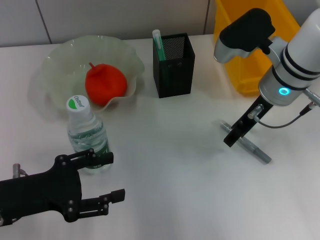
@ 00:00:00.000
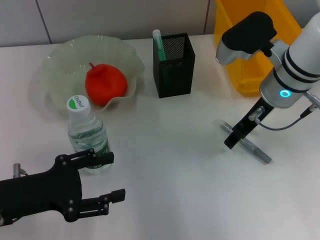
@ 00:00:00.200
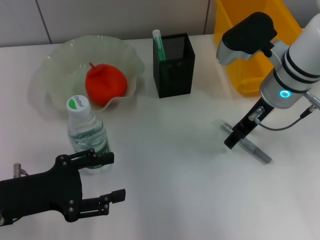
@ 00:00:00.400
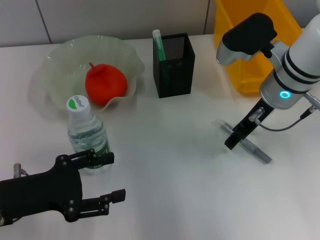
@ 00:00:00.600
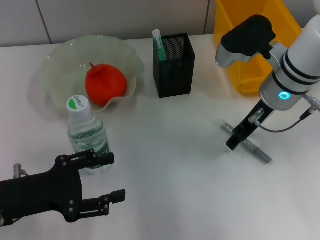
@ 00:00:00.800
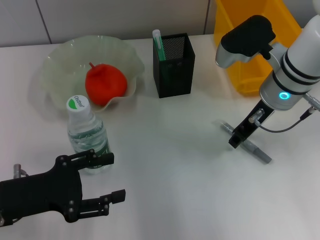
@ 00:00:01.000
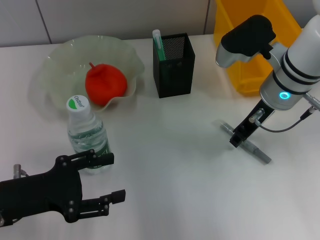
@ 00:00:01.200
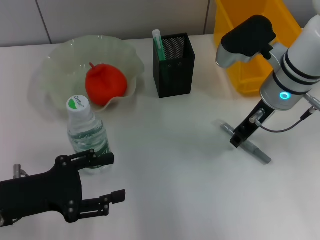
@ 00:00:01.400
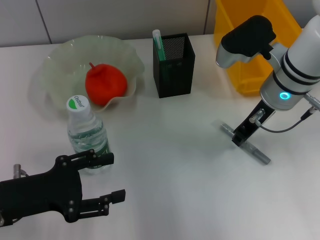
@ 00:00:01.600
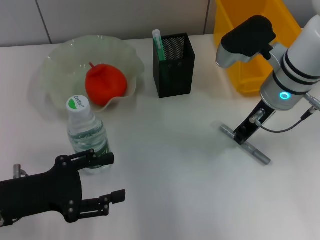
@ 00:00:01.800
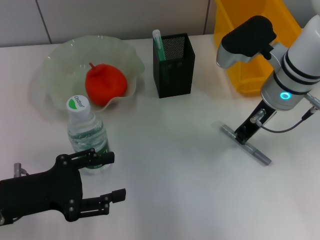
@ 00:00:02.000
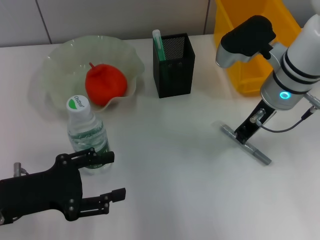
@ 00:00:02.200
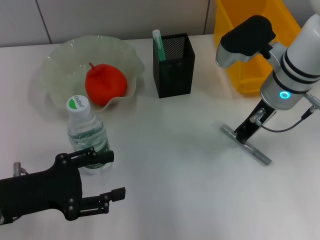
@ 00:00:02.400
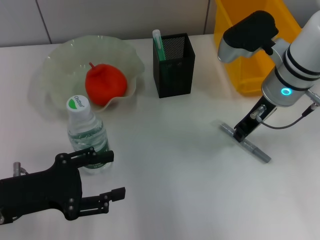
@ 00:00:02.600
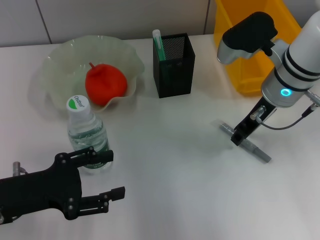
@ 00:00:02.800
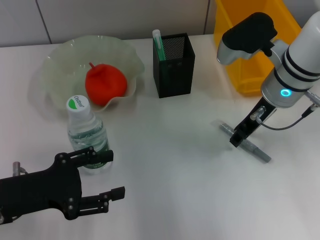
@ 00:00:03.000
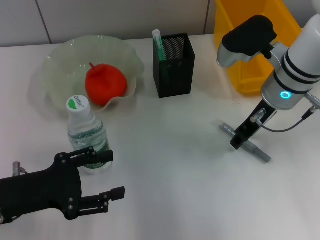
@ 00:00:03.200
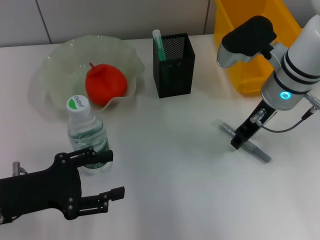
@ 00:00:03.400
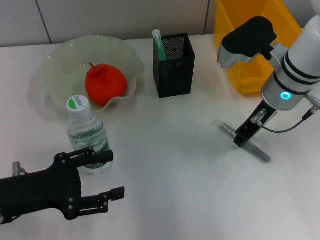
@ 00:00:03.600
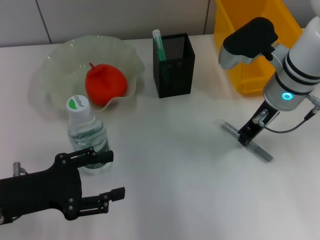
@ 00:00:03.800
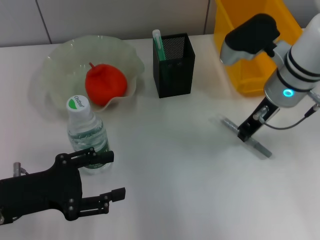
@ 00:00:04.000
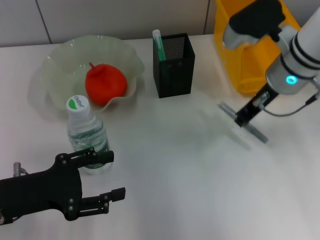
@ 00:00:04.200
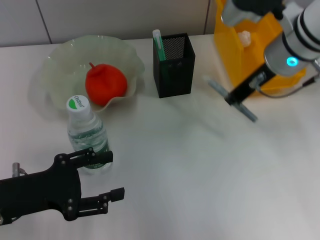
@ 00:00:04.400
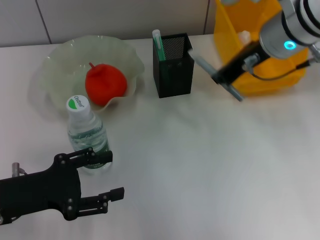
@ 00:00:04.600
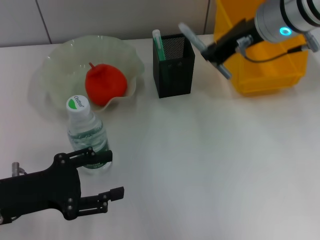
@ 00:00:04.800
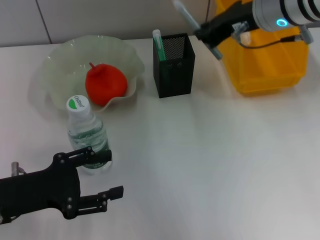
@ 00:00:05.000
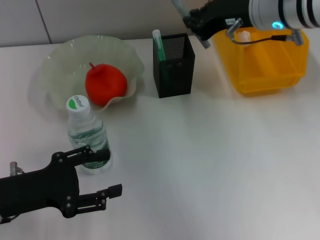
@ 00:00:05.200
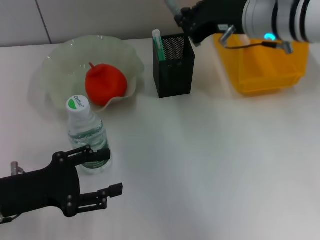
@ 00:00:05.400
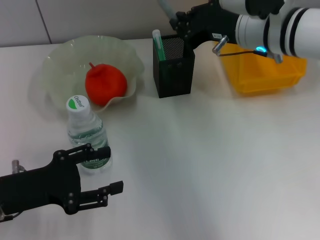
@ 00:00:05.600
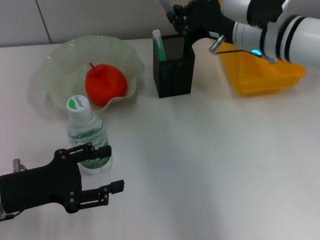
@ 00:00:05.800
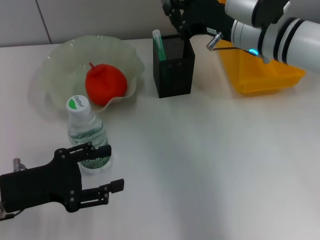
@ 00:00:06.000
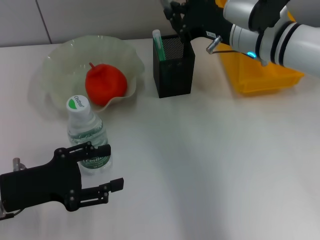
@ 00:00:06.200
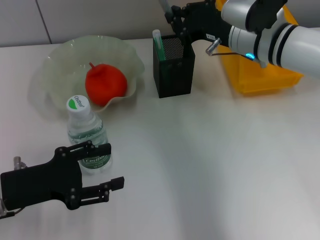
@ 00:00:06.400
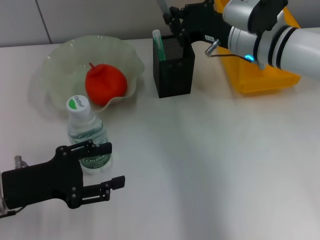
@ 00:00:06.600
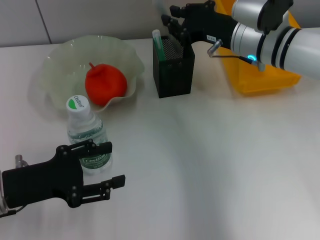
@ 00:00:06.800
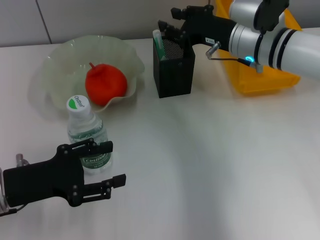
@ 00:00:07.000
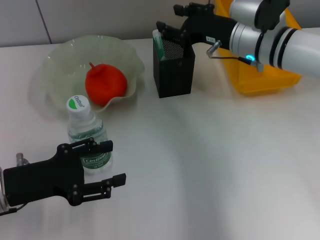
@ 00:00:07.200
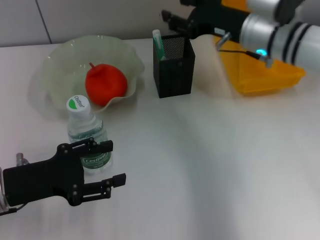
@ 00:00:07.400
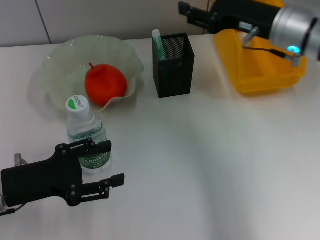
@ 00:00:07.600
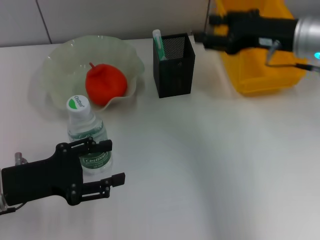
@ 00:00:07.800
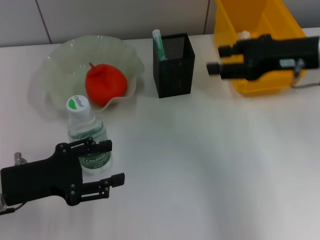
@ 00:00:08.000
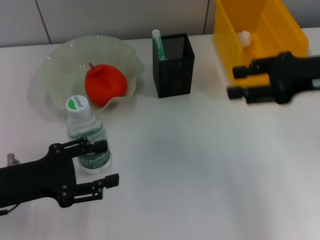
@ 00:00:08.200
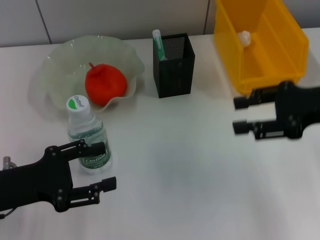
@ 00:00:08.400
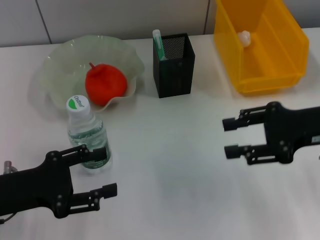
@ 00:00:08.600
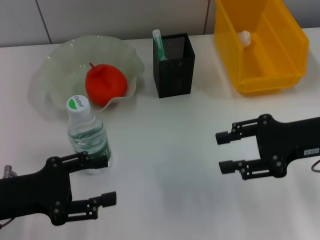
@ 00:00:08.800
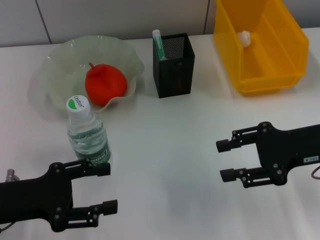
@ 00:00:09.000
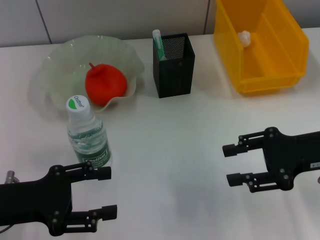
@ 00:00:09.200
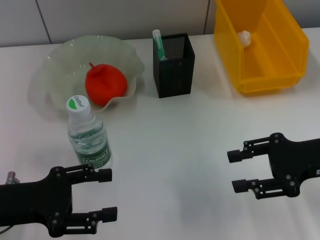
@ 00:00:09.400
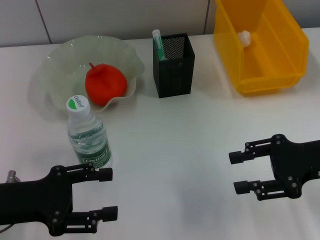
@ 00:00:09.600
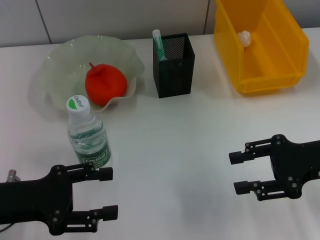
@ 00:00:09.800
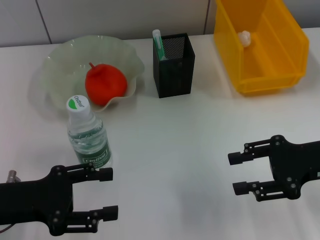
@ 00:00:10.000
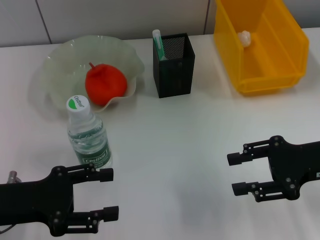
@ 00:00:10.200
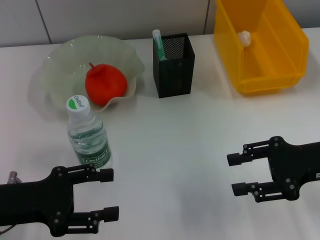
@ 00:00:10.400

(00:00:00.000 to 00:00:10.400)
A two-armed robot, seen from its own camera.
Step, 00:00:00.000 - 00:00:03.800: Grab the gray glue with the right hand.
Step, 00:00:04.000 - 00:00:07.000: Place the gray glue into the pen holder with the right hand.
00:00:00.000 - 00:00:01.400: The right gripper closes its fingers.
00:00:01.400 - 00:00:03.000: Neither gripper changes place.
00:00:03.000 - 00:00:04.400: The right gripper heads upward, covering about 5 cm.
00:00:06.000 - 00:00:07.400: The right gripper opens.
00:00:07.400 - 00:00:09.000: The right gripper heads backward and to the right, covering approximately 15 cm.
00:00:09.000 - 00:00:10.400: The grippers move only a little.

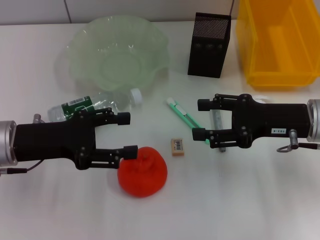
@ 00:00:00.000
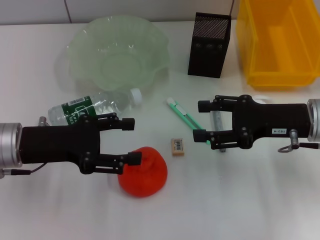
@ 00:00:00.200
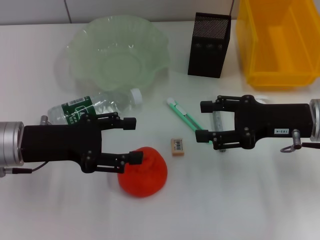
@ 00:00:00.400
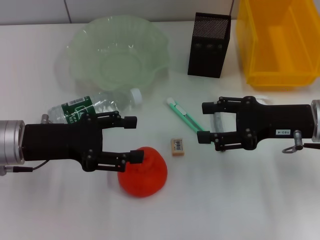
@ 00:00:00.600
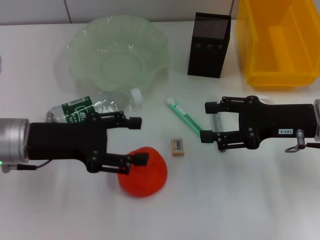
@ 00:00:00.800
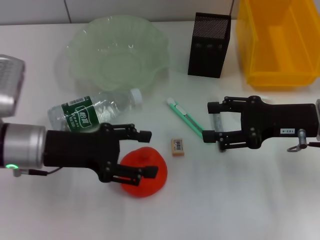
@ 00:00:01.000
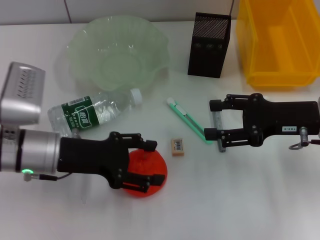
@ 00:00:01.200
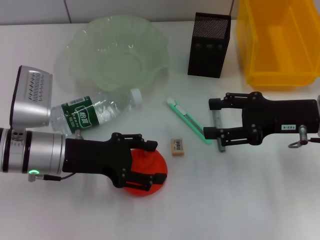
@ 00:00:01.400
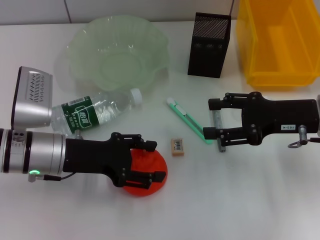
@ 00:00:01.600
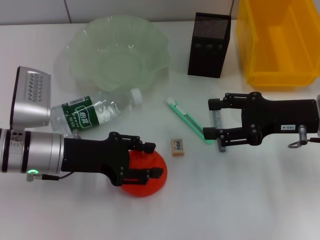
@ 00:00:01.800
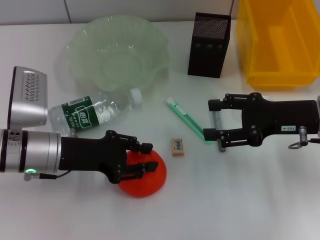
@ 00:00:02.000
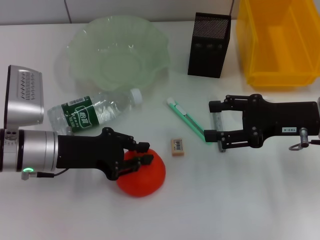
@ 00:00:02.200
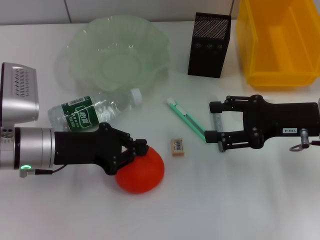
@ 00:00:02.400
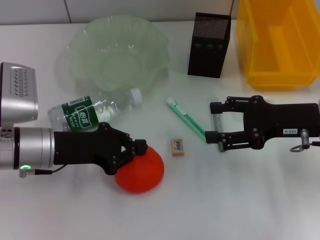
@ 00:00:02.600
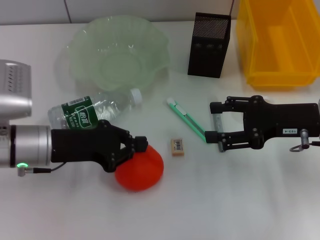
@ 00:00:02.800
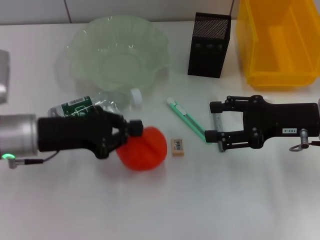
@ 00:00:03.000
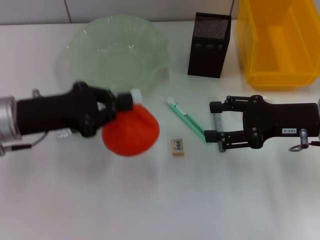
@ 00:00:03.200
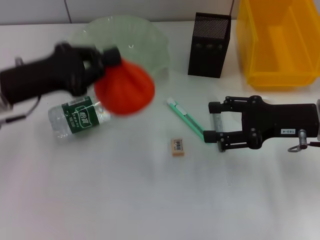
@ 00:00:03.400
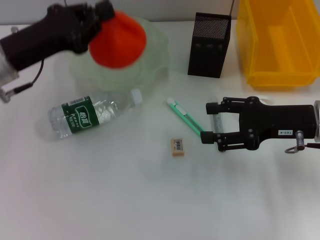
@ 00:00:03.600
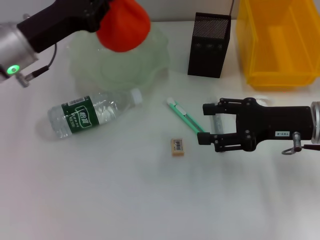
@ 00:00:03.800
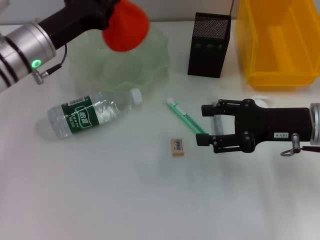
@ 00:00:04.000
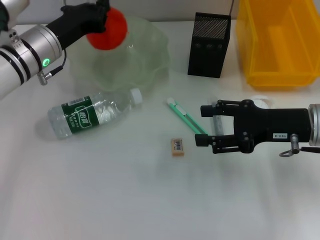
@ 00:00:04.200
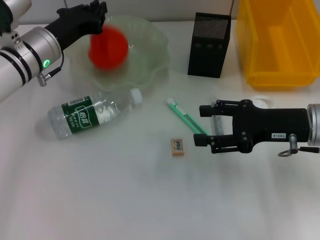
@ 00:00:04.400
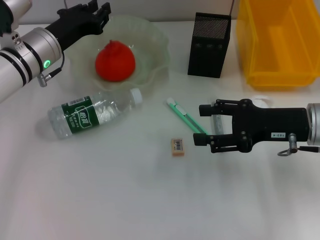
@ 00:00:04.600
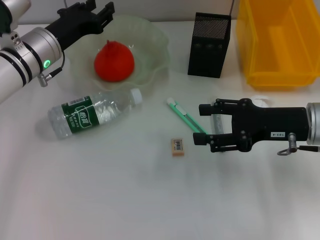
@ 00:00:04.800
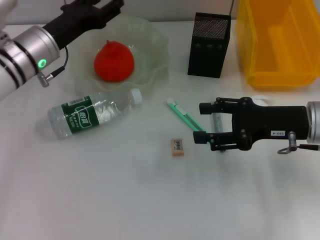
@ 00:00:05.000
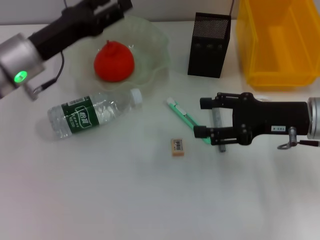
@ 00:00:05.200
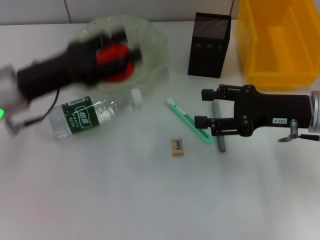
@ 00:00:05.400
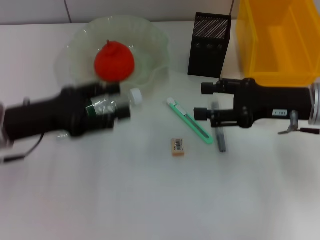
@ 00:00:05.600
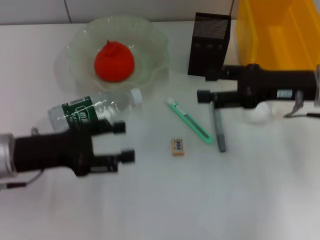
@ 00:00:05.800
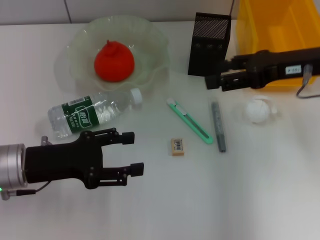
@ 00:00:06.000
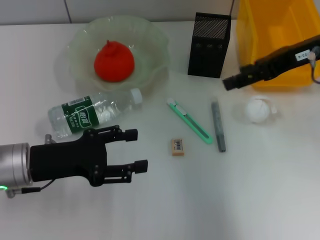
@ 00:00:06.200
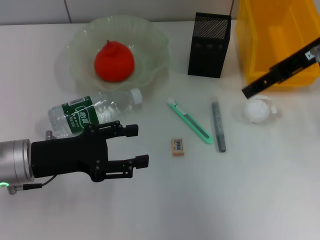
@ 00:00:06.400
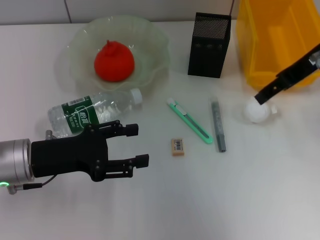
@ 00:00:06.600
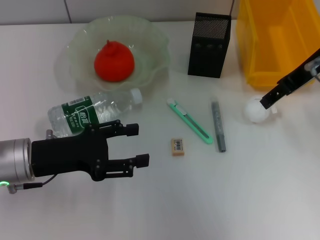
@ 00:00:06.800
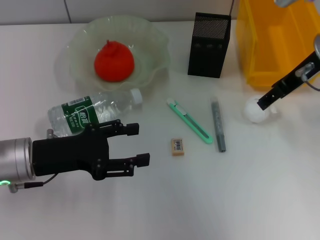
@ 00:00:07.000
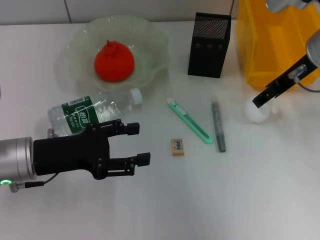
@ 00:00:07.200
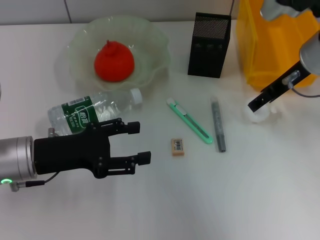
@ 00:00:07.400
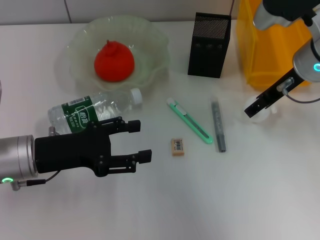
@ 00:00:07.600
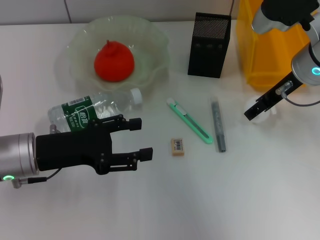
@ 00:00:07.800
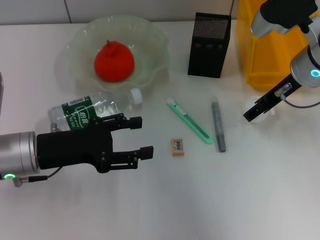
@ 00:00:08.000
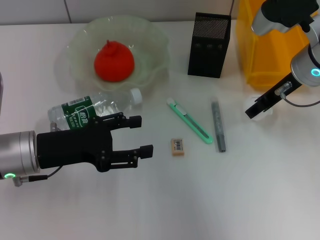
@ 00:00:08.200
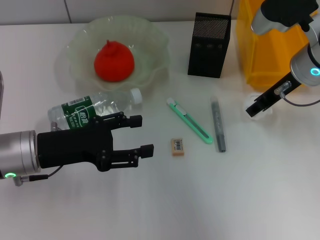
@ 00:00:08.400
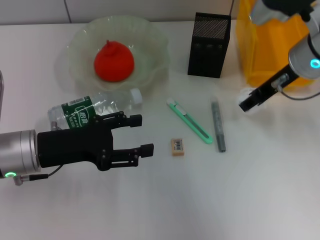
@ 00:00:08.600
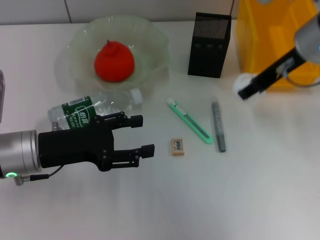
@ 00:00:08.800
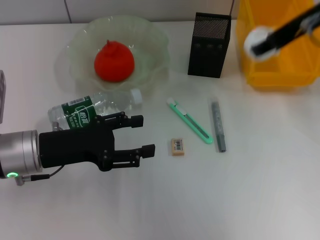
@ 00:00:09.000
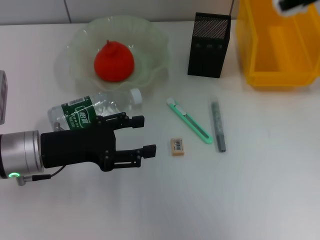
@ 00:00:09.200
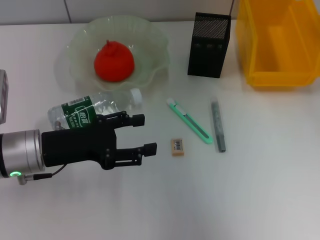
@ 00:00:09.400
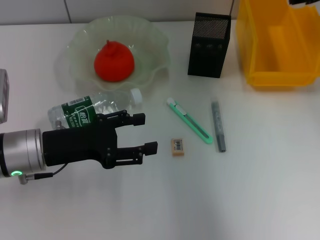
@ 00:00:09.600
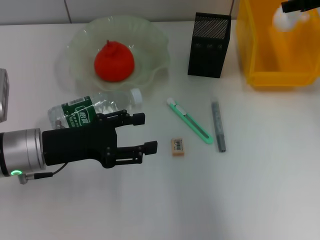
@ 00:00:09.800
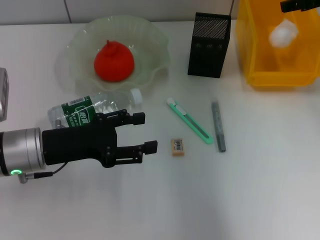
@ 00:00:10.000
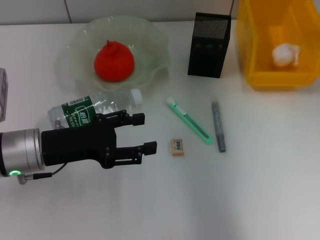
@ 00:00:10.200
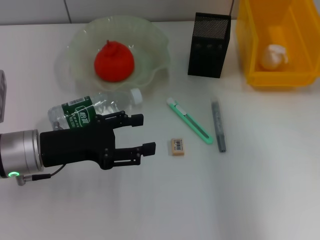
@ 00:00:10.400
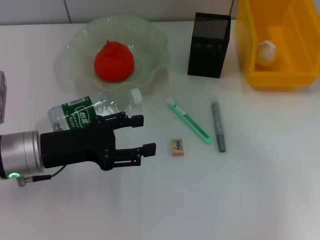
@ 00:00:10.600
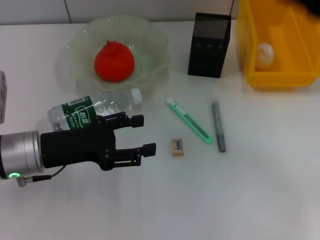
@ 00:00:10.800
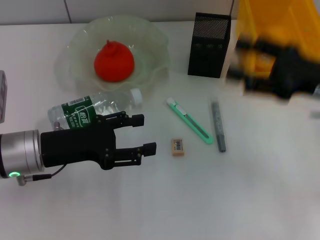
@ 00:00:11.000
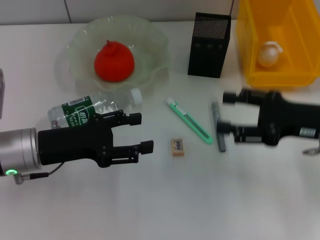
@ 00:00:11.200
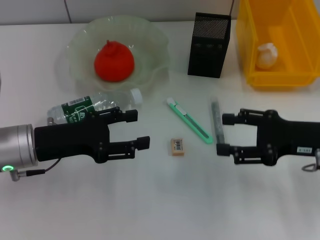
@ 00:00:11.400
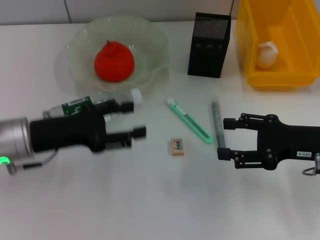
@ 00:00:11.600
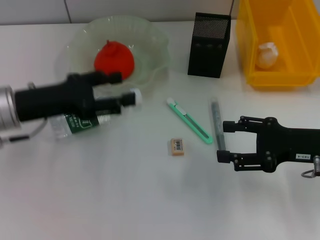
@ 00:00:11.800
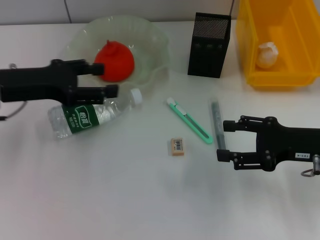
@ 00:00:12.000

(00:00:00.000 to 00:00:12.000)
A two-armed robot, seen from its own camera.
Step, 00:00:00.000 - 00:00:02.600: Grab the orange with the left hand.
Step, 00:00:03.000 - 00:00:04.400: Place the orange into the fruit bowl with the left hand.
Step, 00:00:04.600 - 00:00:08.200: Grab the paper ball with the right hand.
Step, 00:00:08.400 - 00:00:10.200: Place the paper ball into the trash can with the right hand.
00:00:00.000 - 00:00:01.600: The left gripper changes place by about 5 cm.
00:00:01.600 - 00:00:03.000: The left gripper closes up.
00:00:03.000 - 00:00:04.400: The left gripper goes some 10 cm forward.
00:00:04.400 - 00:00:06.000: The right gripper shifts roughly 10 cm upward and forward, while the left gripper moves backward, some 15 cm, and opens its fingers.
00:00:06.000 - 00:00:07.600: The right gripper moves about 5 cm upward and comes back.
00:00:07.600 - 00:00:09.000: The right gripper travels upward by roughly 10 cm.
00:00:09.000 - 00:00:10.400: The right gripper moves to the right and downward, approximately 10 cm, and opens its fingers.
00:00:10.400 - 00:00:12.000: The left gripper moves upward and forward, roughly 10 cm; the right gripper goes approximately 20 cm downward and backward.
